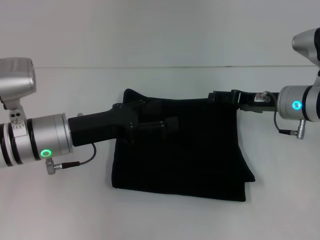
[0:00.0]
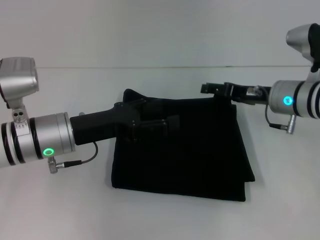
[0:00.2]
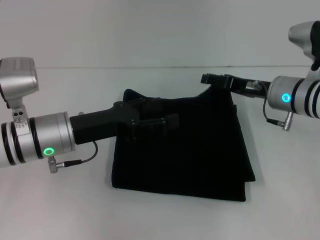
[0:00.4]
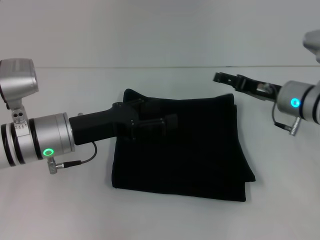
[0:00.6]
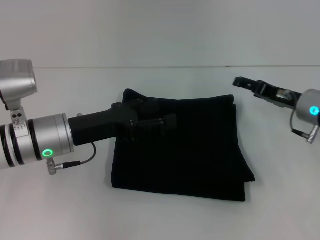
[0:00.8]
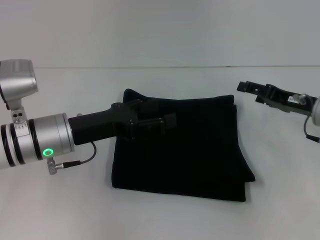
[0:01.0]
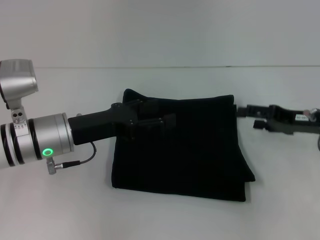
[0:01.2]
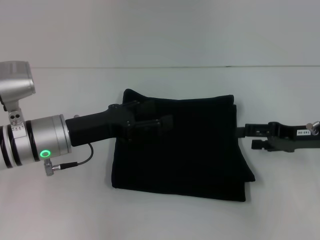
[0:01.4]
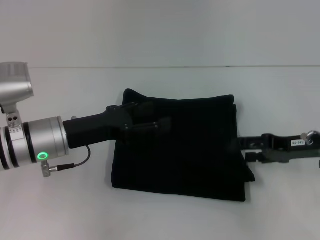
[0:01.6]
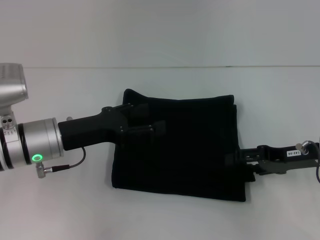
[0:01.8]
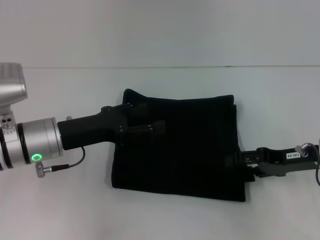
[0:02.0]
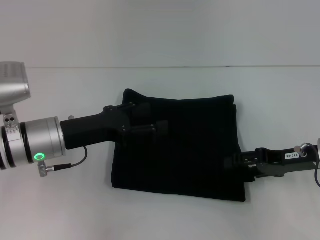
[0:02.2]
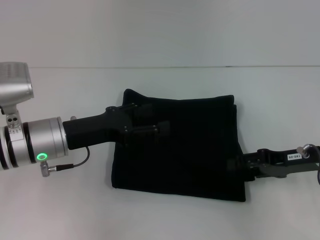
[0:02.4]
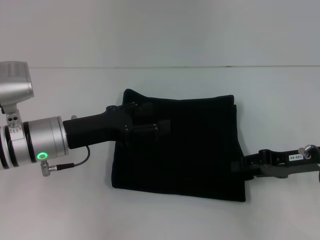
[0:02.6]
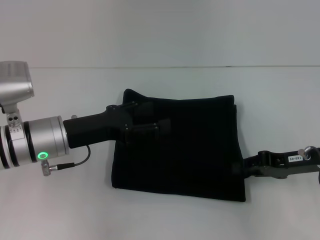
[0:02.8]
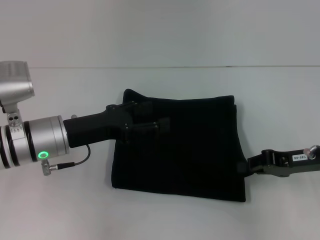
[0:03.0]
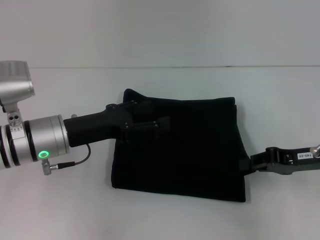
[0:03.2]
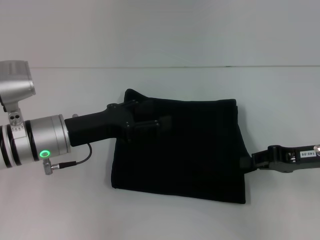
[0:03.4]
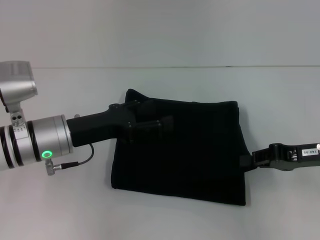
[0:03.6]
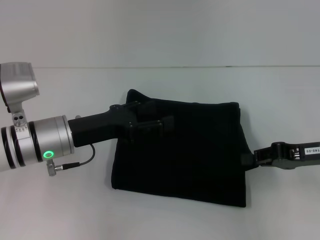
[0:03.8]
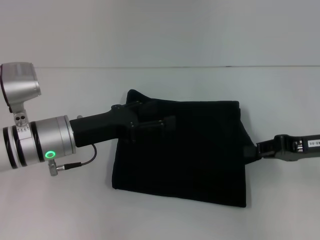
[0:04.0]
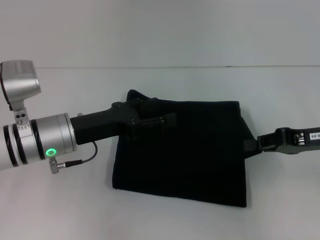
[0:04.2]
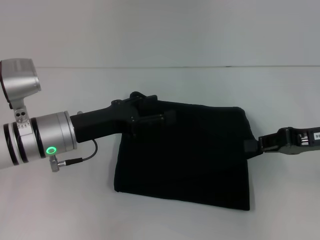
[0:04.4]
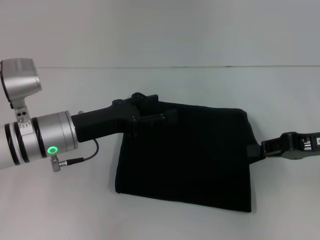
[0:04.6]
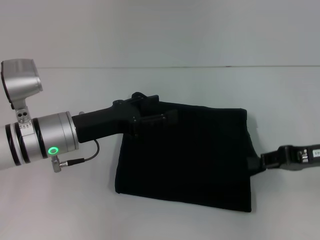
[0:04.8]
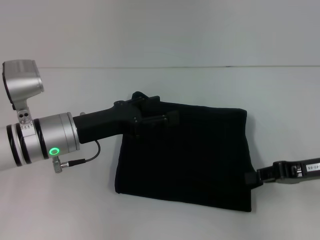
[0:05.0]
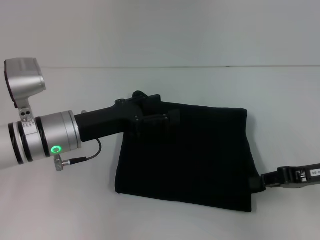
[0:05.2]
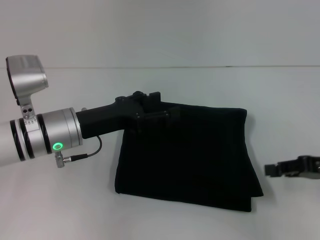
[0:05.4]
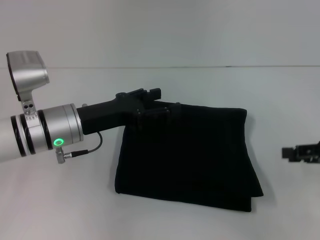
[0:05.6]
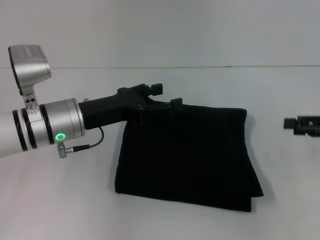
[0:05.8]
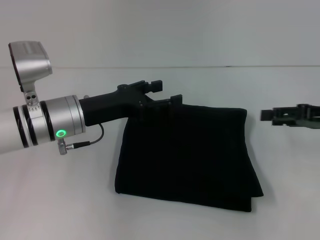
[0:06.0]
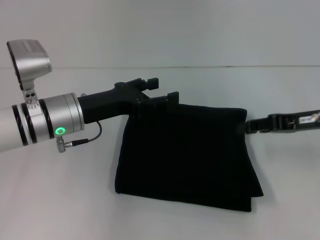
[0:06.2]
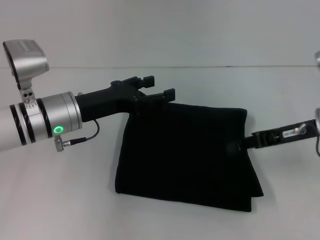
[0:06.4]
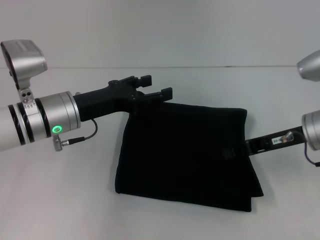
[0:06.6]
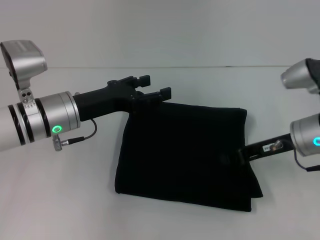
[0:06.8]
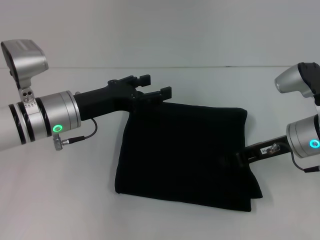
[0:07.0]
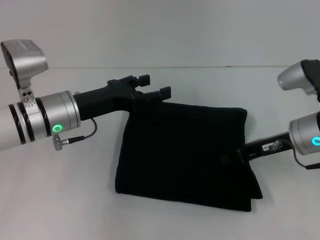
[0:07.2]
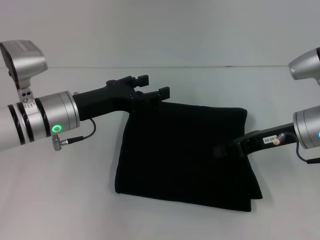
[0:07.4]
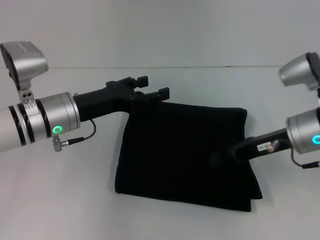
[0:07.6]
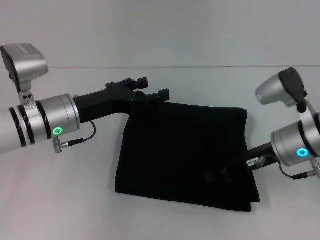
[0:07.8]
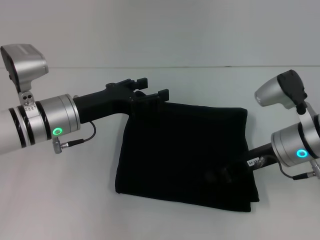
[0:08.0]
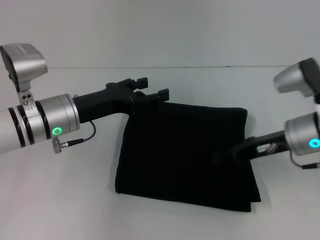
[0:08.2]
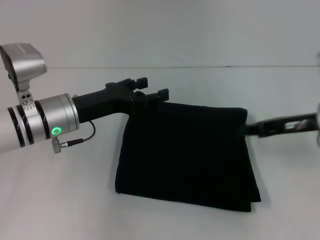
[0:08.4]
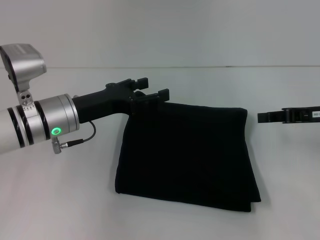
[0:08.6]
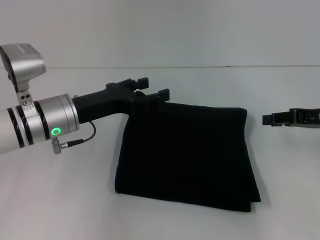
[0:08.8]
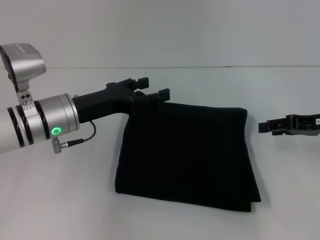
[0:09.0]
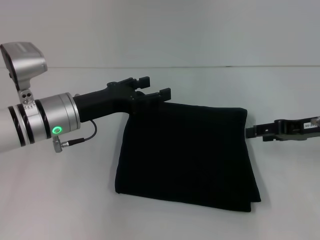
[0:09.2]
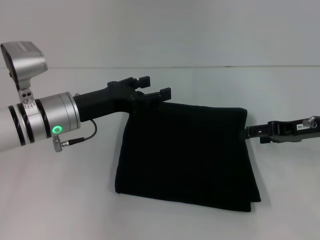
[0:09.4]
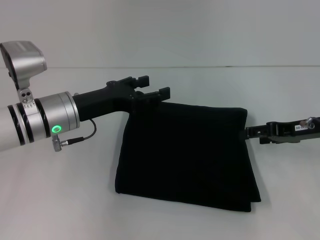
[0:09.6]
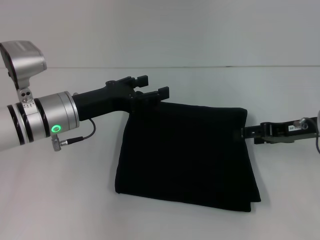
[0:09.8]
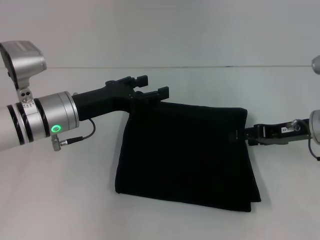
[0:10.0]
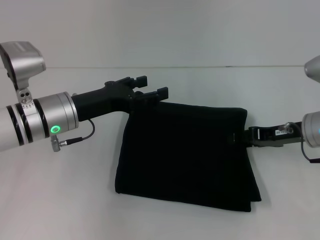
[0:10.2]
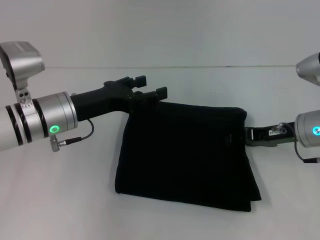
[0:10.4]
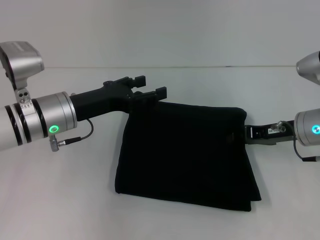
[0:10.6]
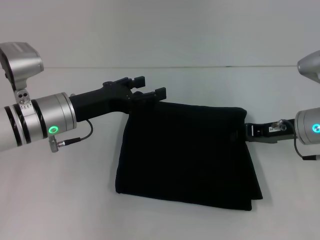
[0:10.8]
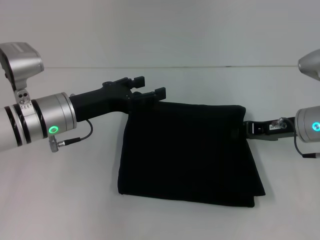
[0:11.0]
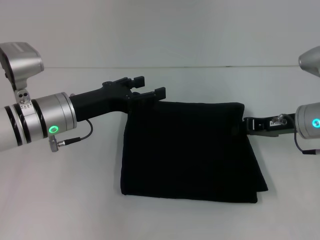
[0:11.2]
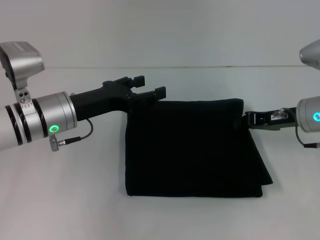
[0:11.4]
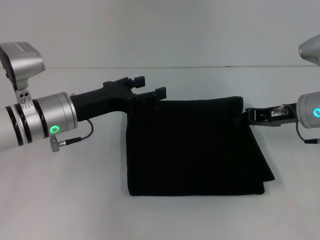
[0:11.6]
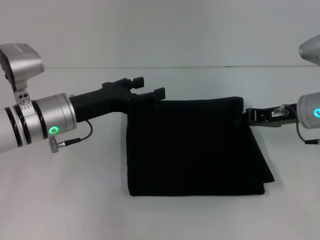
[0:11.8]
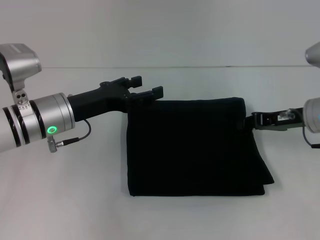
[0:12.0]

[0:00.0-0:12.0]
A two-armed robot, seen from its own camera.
0:00.0 to 0:01.6: The right gripper travels backward and to the right by approximately 10 cm.
0:01.6 to 0:03.0: The right gripper closes up.
0:03.0 to 0:04.4: The right gripper shifts roughly 5 cm upward.
0:04.4 to 0:06.0: The right gripper opens.
0:06.0 to 0:07.6: The right gripper shifts some 10 cm to the left, and closes its fingers.
0:07.6 to 0:09.0: The right gripper is displaced to the right by approximately 10 cm.
0:09.0 to 0:10.4: The right gripper heads to the left, covering roughly 5 cm.
0:10.4 to 0:12.0: The right gripper closes its fingers.

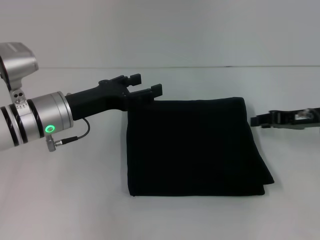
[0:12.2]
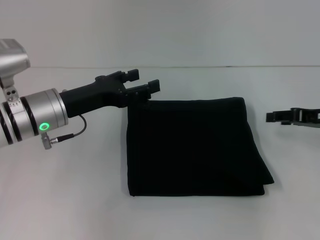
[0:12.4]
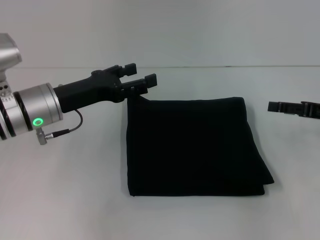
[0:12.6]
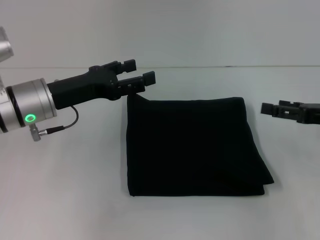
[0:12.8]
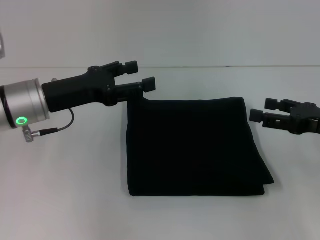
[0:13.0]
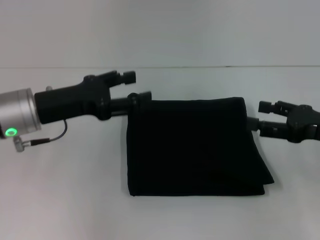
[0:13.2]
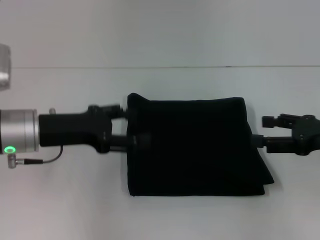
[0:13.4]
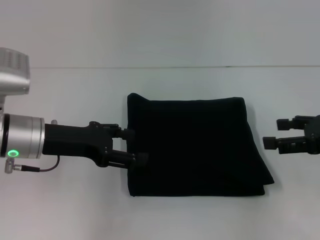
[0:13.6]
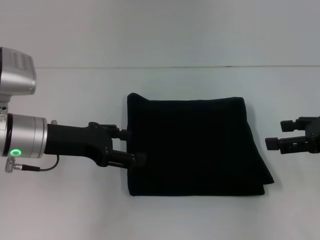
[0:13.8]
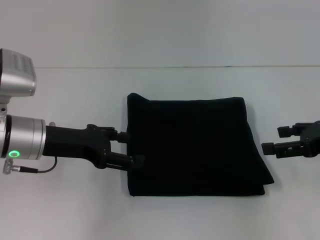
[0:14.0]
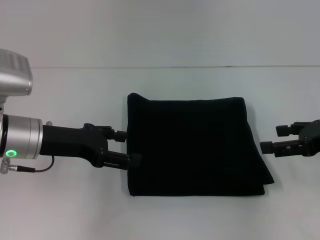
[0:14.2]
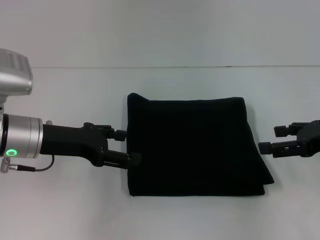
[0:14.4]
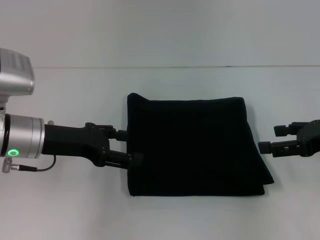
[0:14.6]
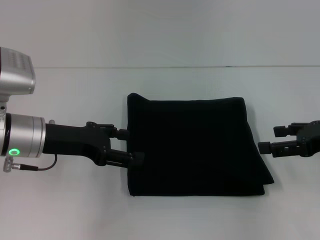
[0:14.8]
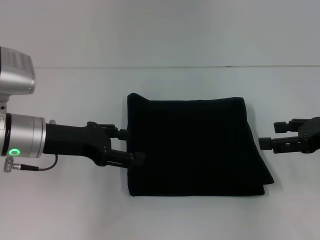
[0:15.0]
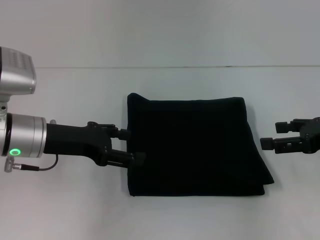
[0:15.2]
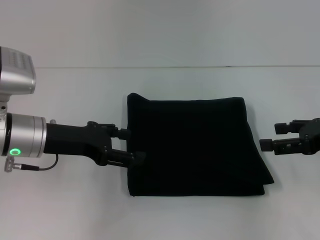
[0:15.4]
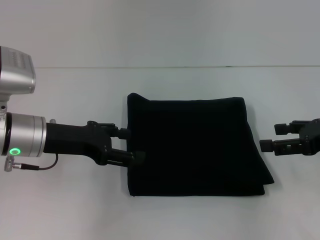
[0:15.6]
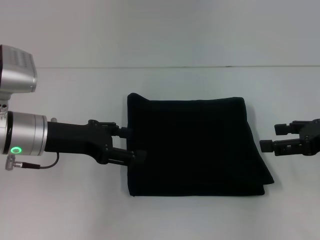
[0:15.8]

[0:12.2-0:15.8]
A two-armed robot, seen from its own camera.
0:12.2 to 0:14.0: The right gripper travels backward by approximately 5 cm, and opens up.
0:14.0 to 0:15.8: Both grippers stay about where they are.
